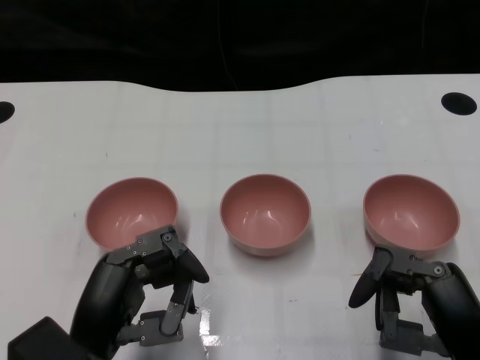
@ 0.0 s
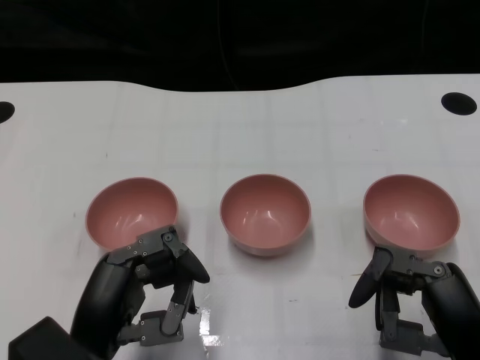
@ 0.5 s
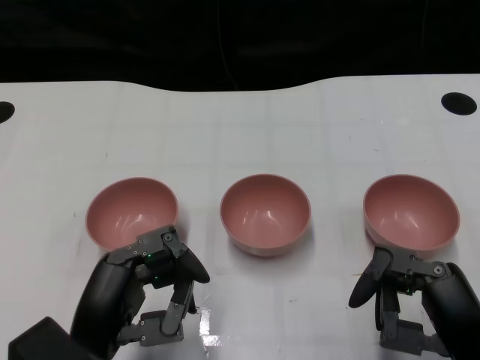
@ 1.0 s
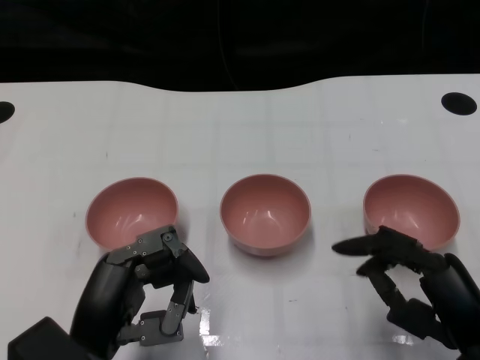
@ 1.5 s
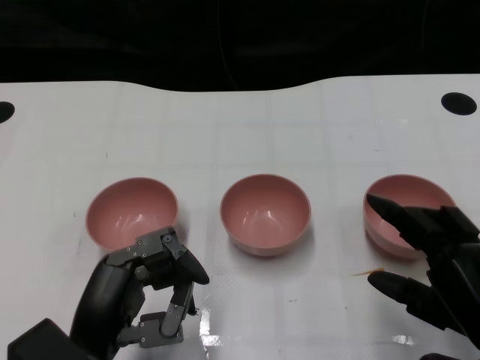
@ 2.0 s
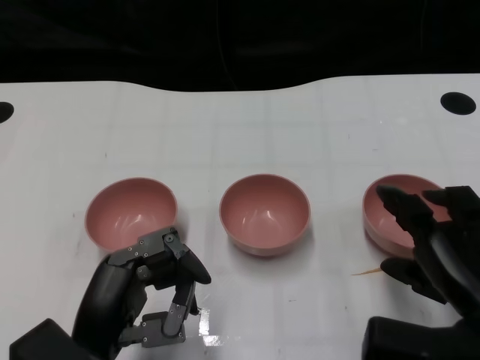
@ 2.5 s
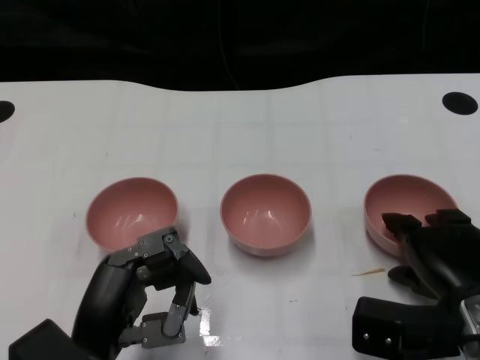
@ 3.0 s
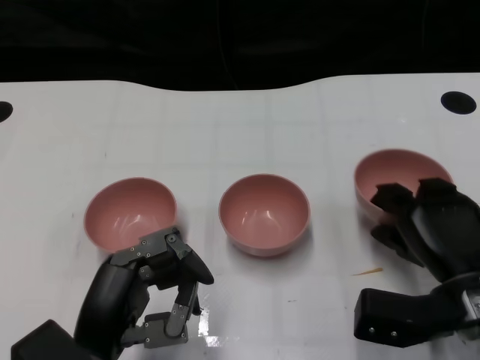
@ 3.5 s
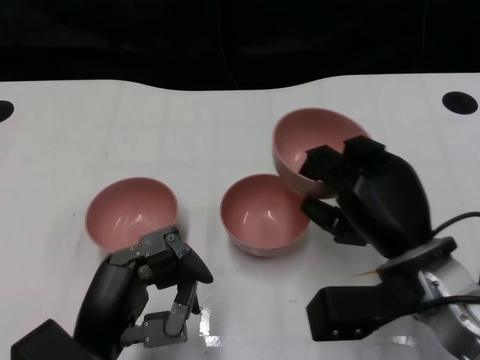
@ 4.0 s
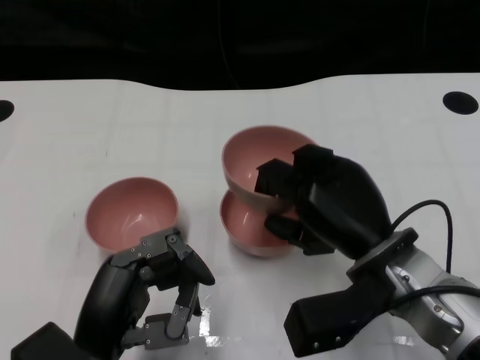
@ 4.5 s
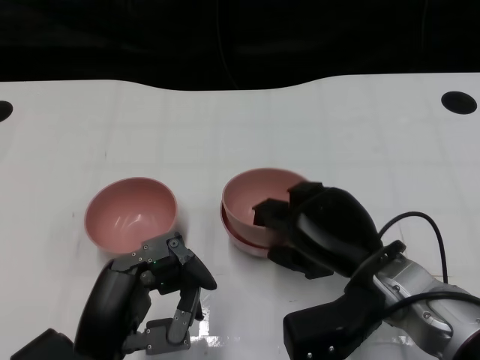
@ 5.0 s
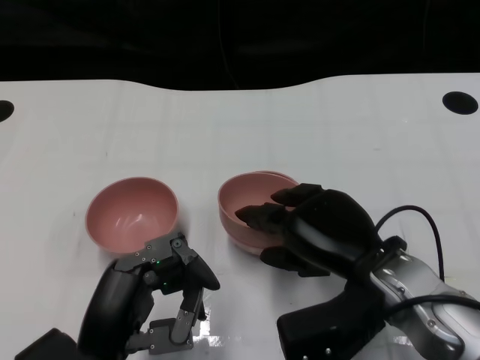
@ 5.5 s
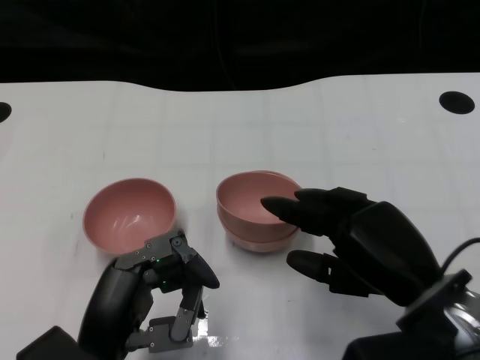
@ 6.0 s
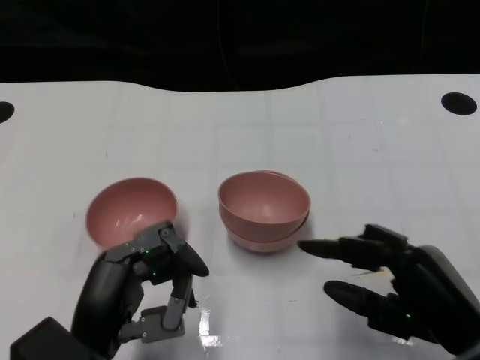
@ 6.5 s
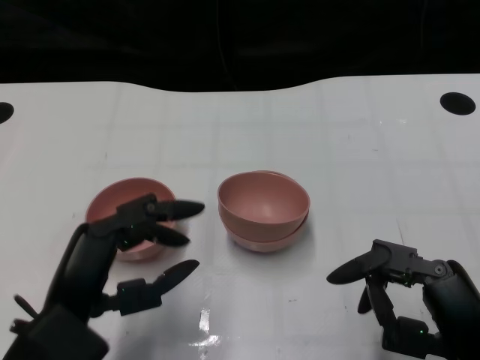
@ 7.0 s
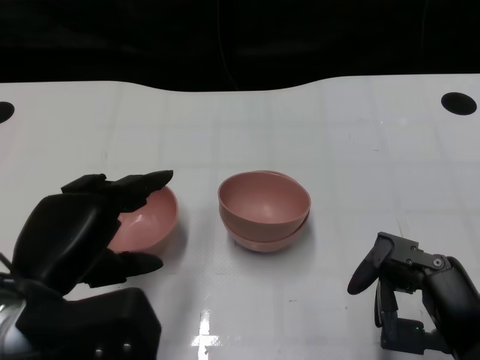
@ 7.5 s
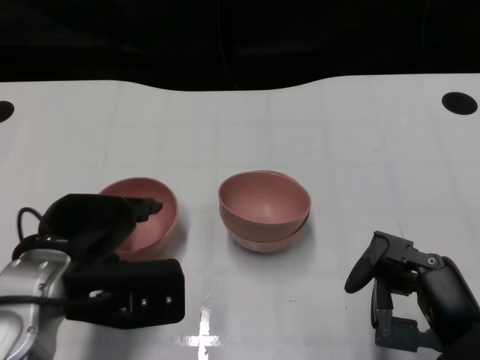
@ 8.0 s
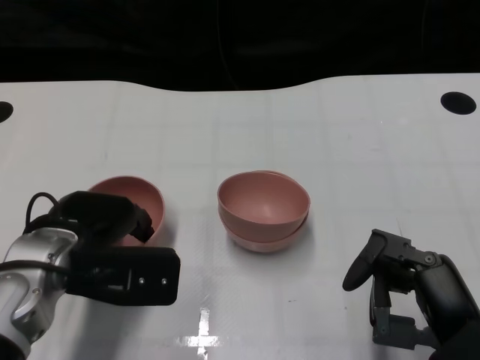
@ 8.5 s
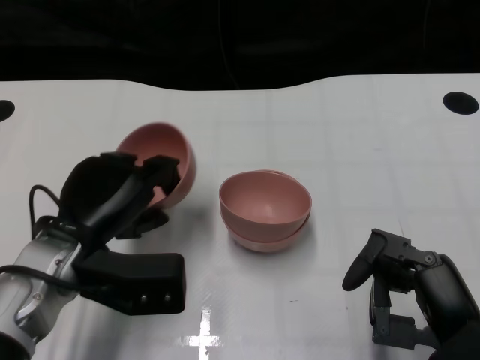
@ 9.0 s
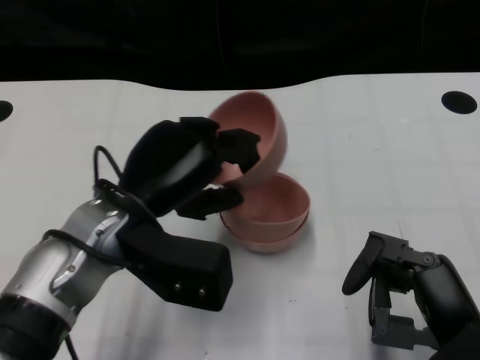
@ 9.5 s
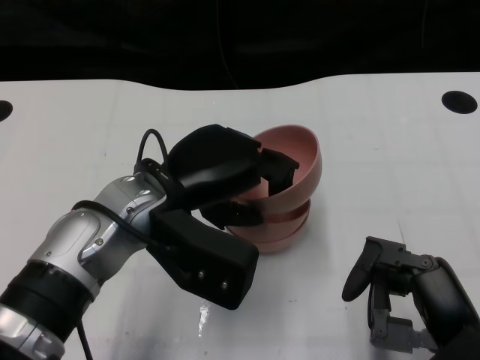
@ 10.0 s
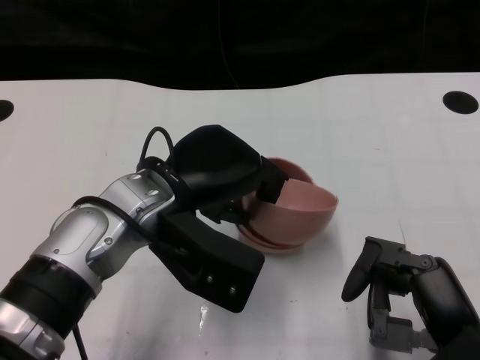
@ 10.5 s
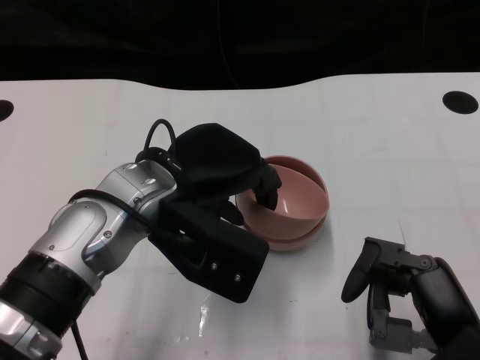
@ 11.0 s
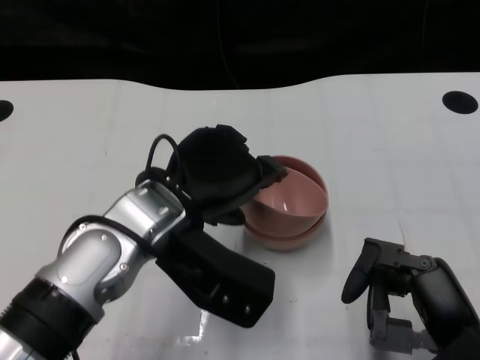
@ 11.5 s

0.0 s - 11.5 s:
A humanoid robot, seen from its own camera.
Task of the whole recording: Pick up the bowl on one side of the table and place it on top of the middle bowl, then pick up the bowl on the other side of the table and place it on top of the middle bowls.
Step, 1.5 s - 3.0 s: Grasp the bowl on the right with the right gripper.
Step, 3.5 s - 5.5 s: Place the bowl on the right onto the bowl in the middle with right gripper.
Step, 6.0 s - 8.5 s: Grasp the bowl on the left with the left gripper.
2.0 s - 4.0 s: The right hand goes roughly 10 cm forward and to the left.
6.0 s - 7.5 s: The left hand travels upward by approximately 5 cm. The right hand is displaced backward by about 5 cm.
7.5 s - 9.5 s: The left hand heads forward and to the right, covering approximately 10 cm.

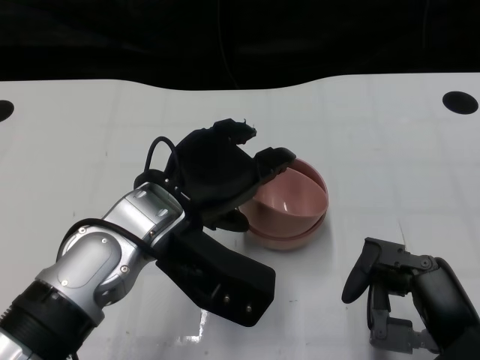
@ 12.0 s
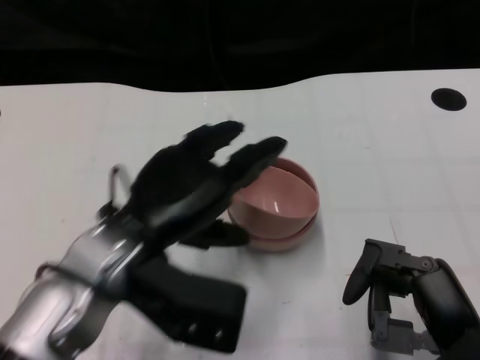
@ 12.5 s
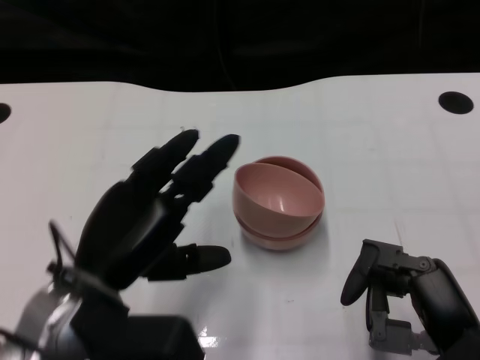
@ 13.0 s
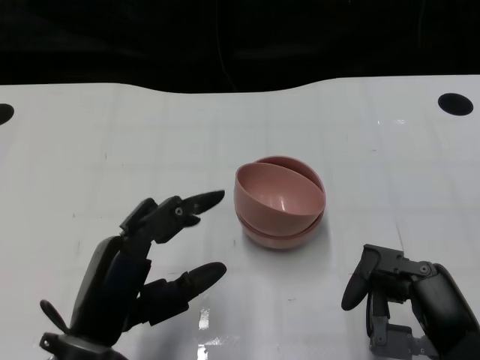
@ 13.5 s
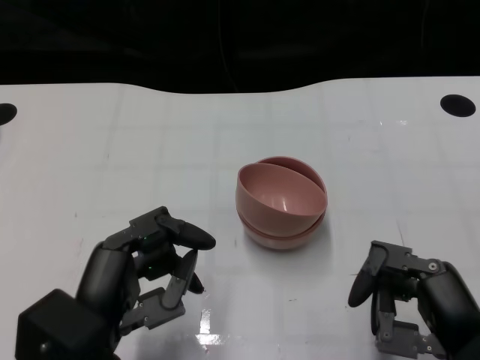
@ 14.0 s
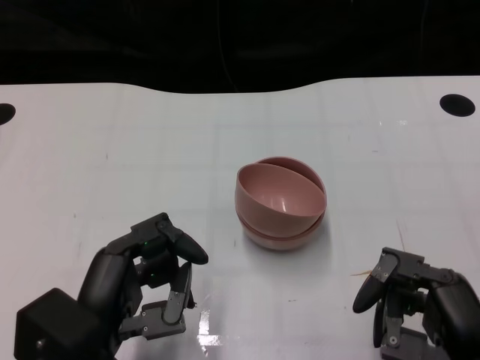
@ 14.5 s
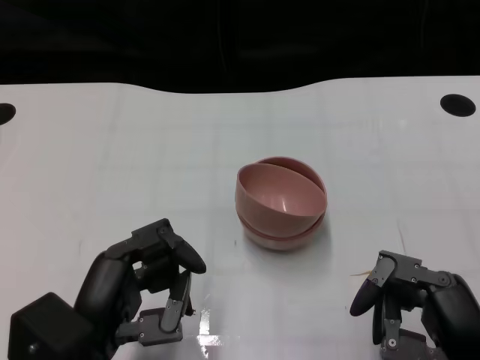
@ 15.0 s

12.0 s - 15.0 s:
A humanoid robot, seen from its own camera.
Task of the whole recording: Pick up the bowl on one side of the table and place it on top of the middle bowl, then pick up the bowl on the other side of the table and place it on top of the middle bowls.
12.0 s - 13.5 s: The left hand is displaced backward, to the left and downward by roughly 15 cm.
